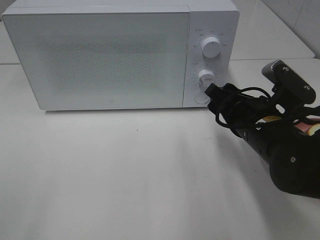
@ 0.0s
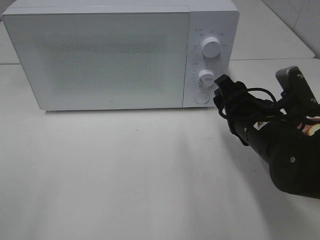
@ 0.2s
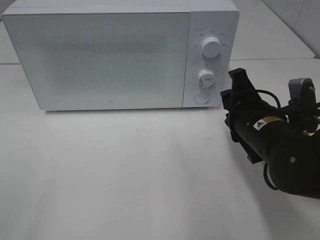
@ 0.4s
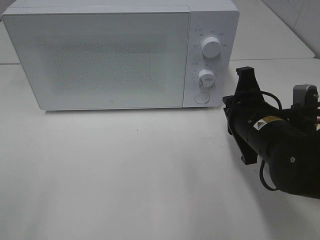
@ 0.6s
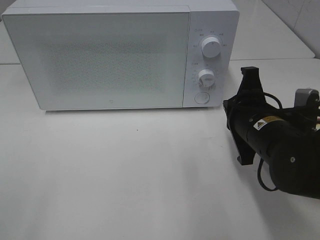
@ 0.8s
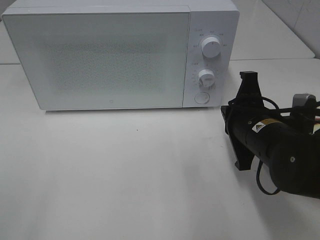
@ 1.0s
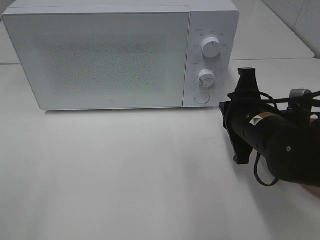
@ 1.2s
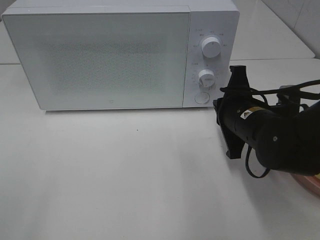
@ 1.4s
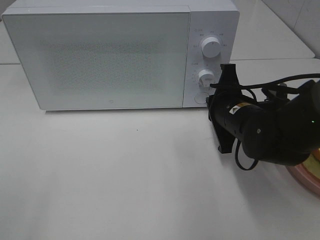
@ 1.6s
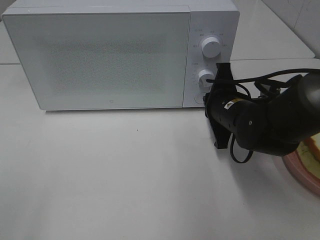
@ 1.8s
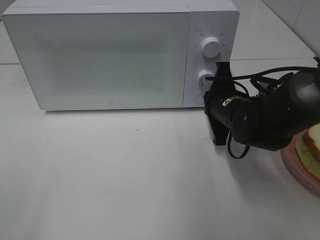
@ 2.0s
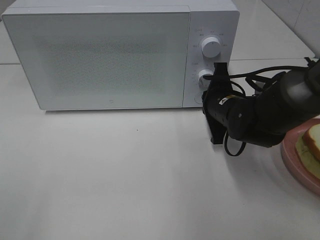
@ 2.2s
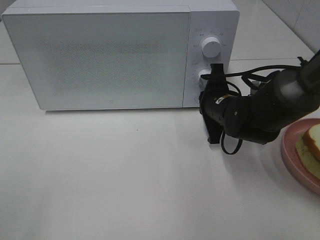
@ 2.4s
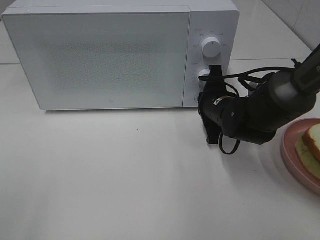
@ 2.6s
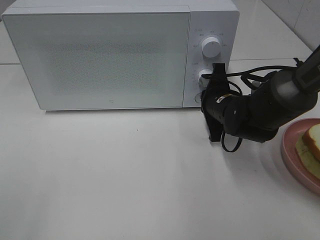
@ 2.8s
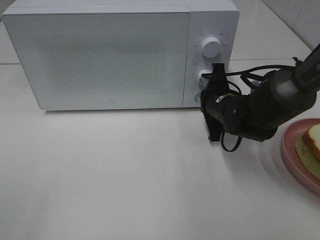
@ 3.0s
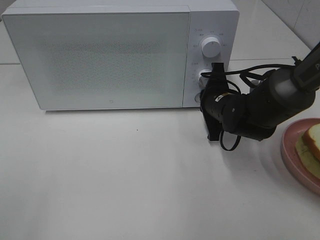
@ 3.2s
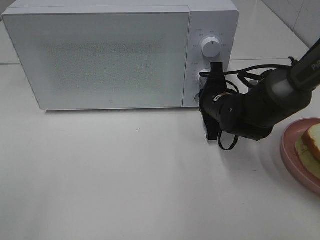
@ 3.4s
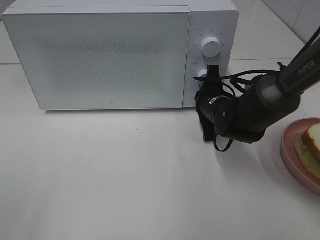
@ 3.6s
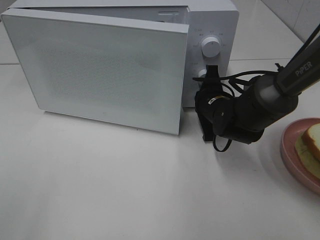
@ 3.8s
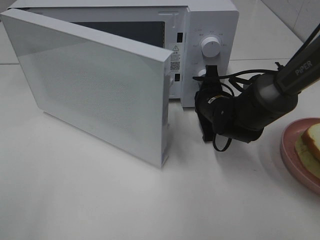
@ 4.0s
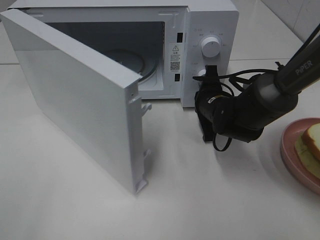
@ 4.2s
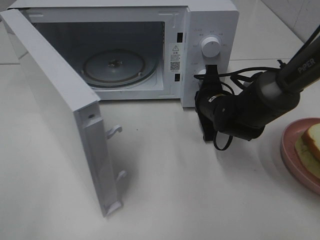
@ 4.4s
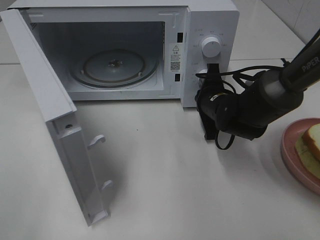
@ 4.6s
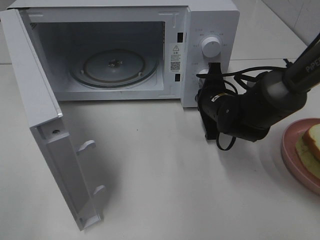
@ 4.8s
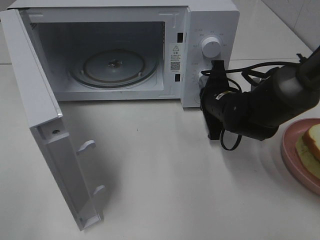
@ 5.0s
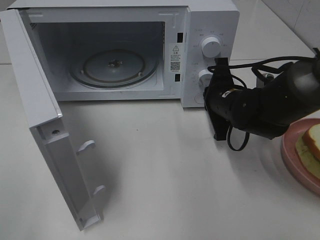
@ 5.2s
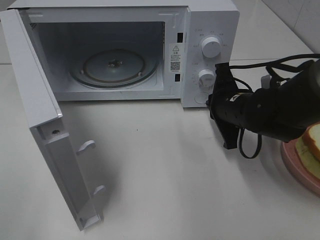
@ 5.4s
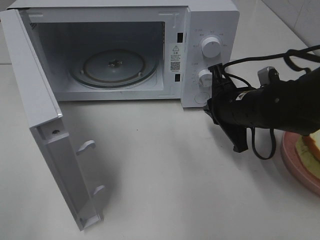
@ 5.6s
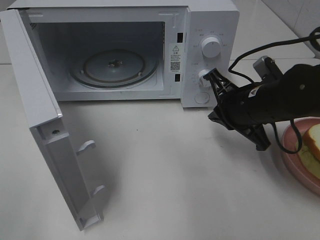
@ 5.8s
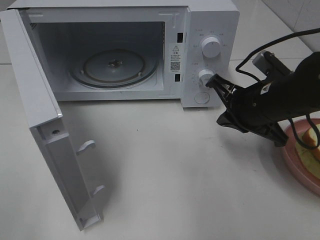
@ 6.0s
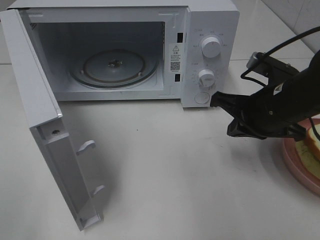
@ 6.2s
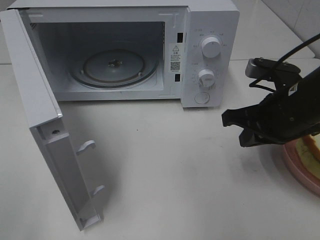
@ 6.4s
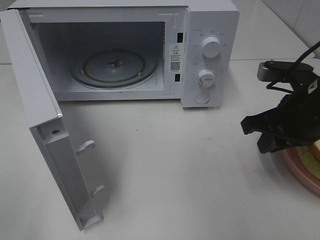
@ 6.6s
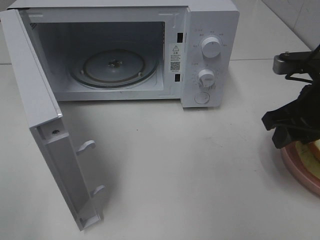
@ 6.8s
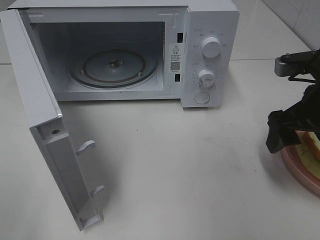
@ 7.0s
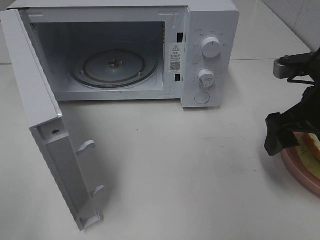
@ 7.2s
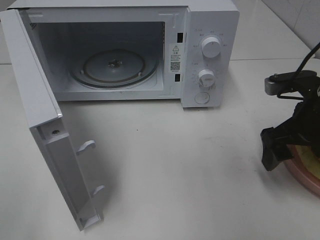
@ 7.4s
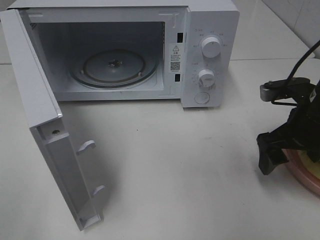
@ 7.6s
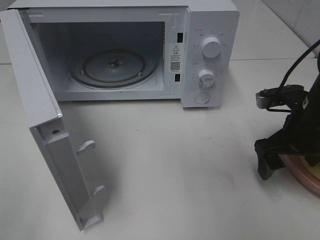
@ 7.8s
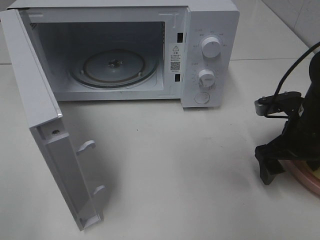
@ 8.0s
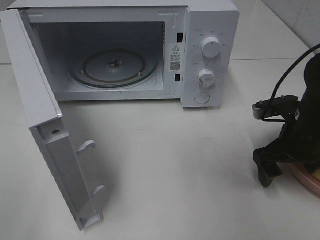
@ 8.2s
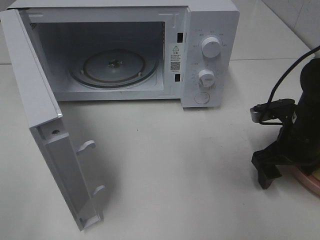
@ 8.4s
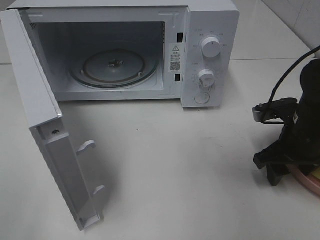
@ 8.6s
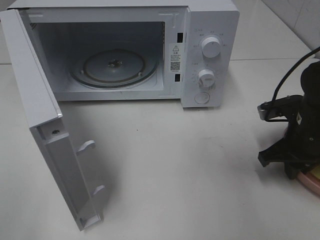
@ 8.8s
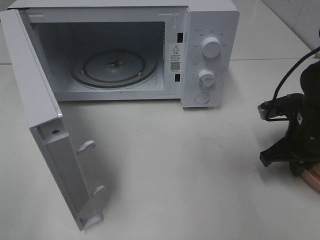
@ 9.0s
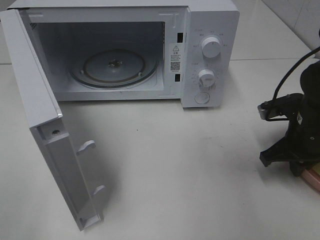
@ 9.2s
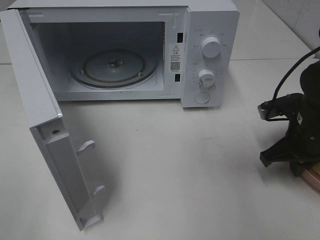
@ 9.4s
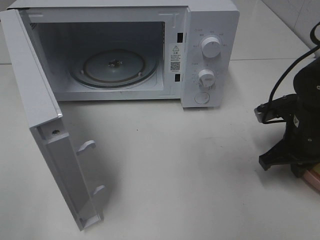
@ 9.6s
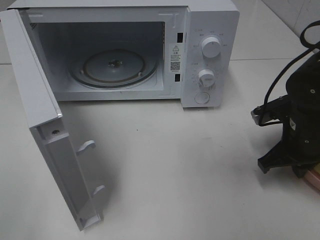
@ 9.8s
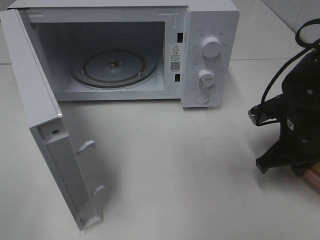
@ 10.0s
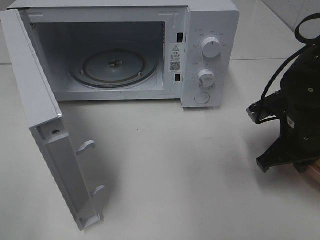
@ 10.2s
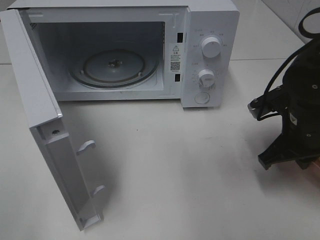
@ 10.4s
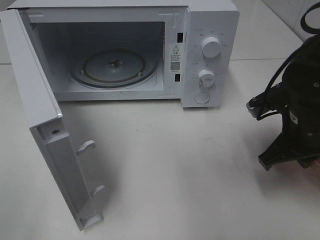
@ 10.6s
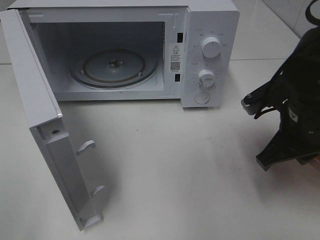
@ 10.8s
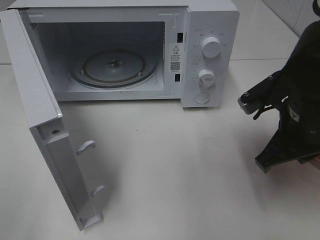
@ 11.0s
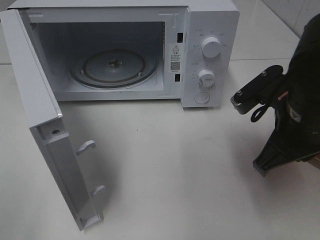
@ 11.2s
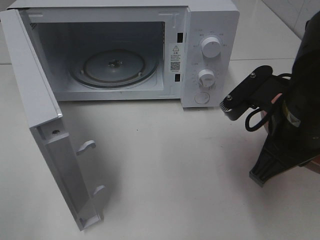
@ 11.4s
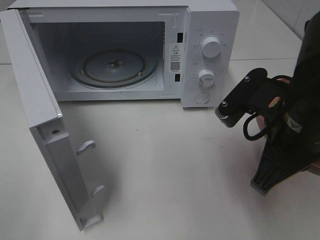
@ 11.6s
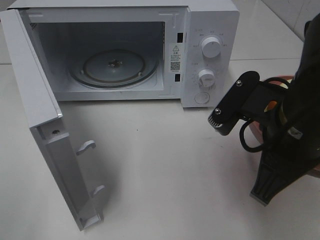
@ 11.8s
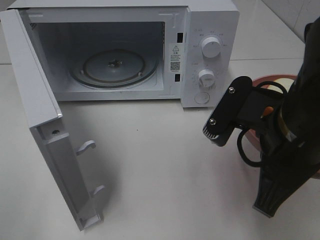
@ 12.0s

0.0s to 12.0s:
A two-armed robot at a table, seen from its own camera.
Task of the whole recording: Heat Sandwich.
Step, 0.0s to 5.4s: Right hand: press the switch.
Step, 5.6s to 9.2s: Right hand: grab the plate with the sandwich.
0.0s to 1.6s: The right gripper shifts by roughly 5 cm, and closes its fingers.
1.6s to 3.0s: The right gripper travels forward by some 5 cm.
4.4s to 6.0s: The right gripper heads backward and upward, covering some 10 cm.
6.0s to 7.6s: The right gripper shifts roughly 5 cm to the right, and opens.
7.6s to 9.0s: The right gripper changes place by about 5 cm, and closes.
9.0s to 10.4s: The grippers make only small movements.
10.4s to 12.0s: The right gripper is displaced backward, to the left and upward by approximately 15 cm.

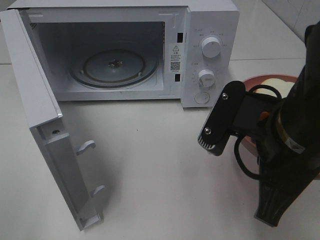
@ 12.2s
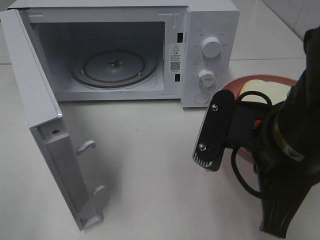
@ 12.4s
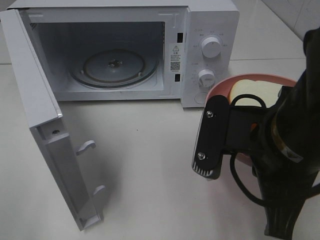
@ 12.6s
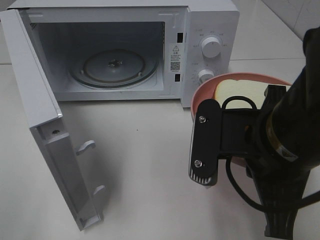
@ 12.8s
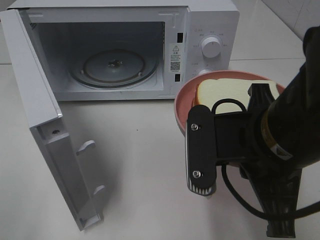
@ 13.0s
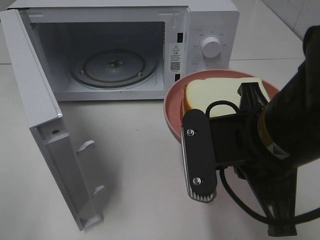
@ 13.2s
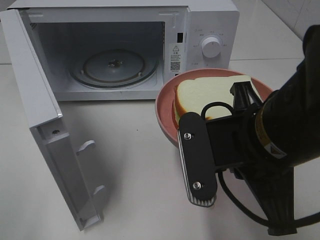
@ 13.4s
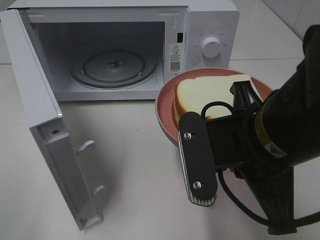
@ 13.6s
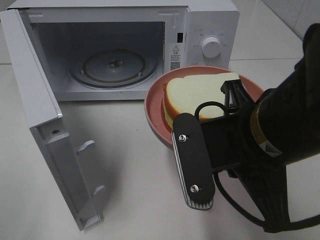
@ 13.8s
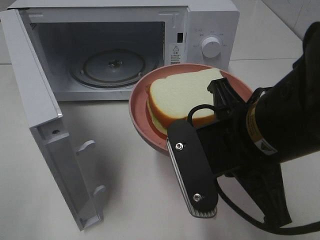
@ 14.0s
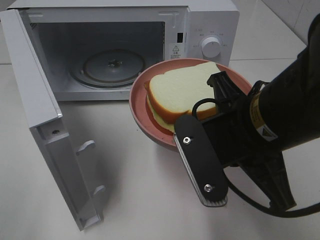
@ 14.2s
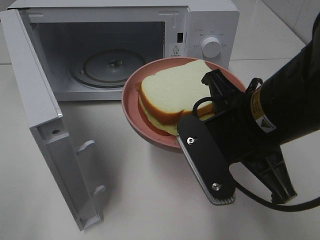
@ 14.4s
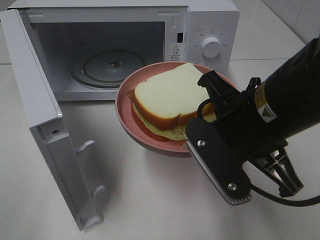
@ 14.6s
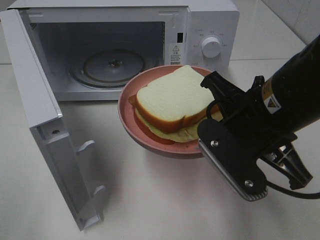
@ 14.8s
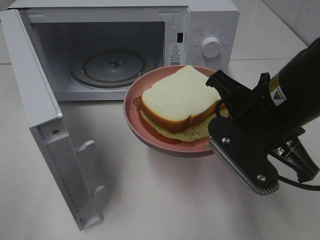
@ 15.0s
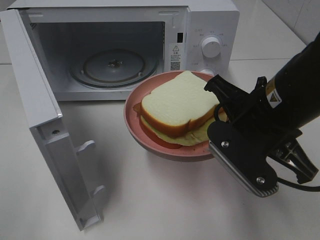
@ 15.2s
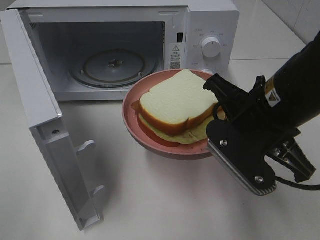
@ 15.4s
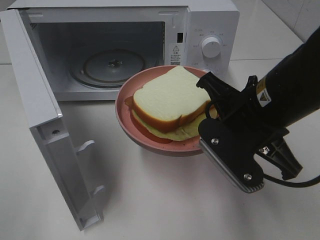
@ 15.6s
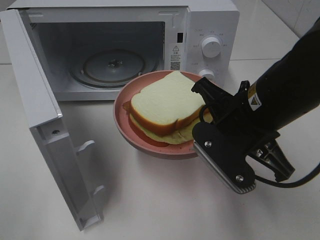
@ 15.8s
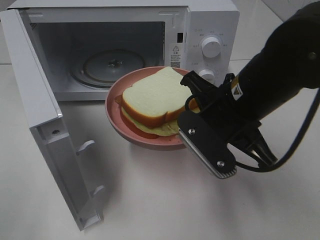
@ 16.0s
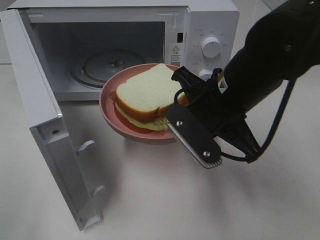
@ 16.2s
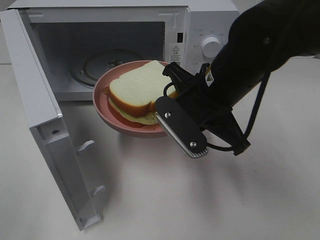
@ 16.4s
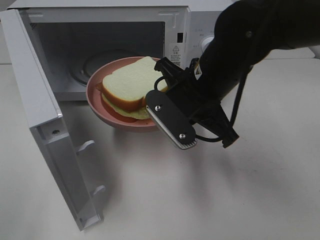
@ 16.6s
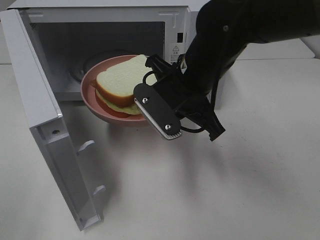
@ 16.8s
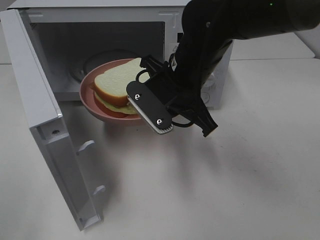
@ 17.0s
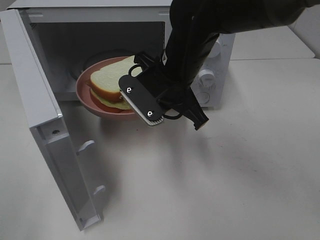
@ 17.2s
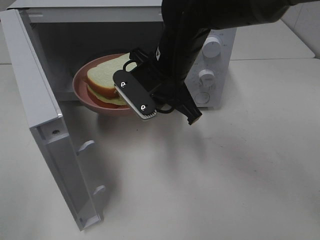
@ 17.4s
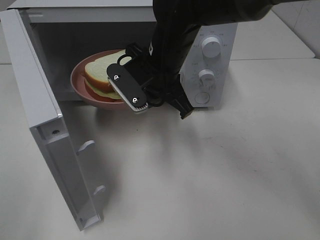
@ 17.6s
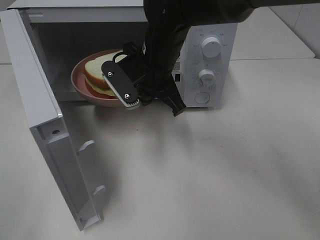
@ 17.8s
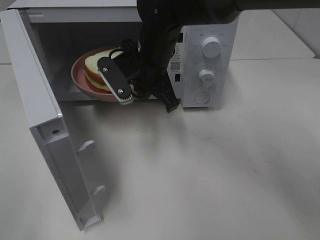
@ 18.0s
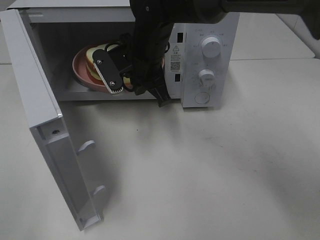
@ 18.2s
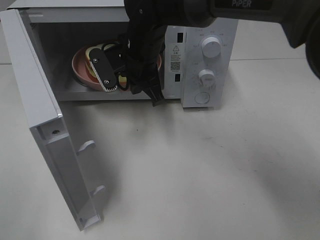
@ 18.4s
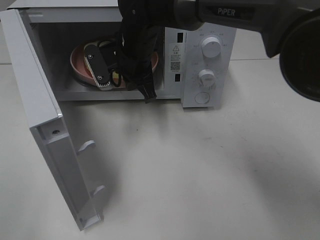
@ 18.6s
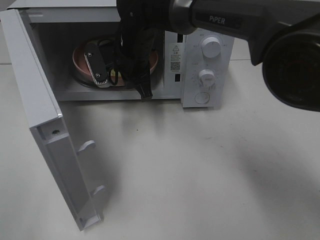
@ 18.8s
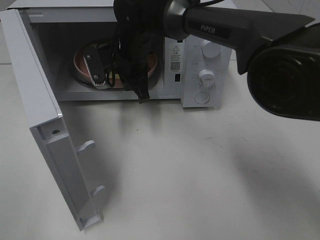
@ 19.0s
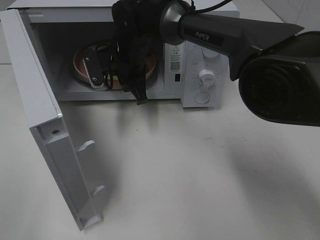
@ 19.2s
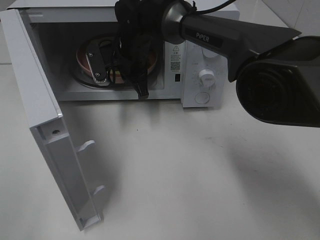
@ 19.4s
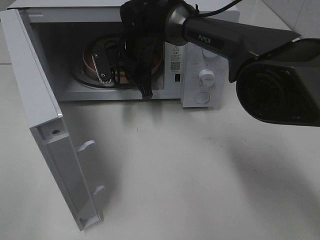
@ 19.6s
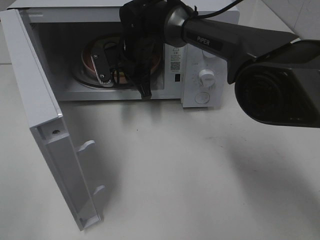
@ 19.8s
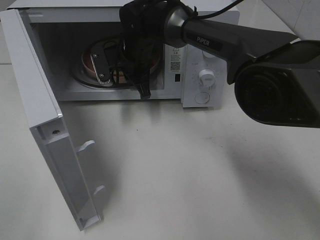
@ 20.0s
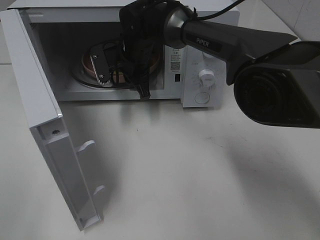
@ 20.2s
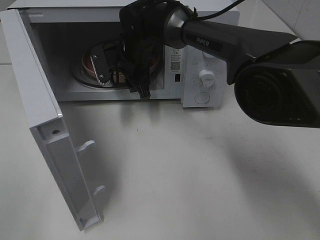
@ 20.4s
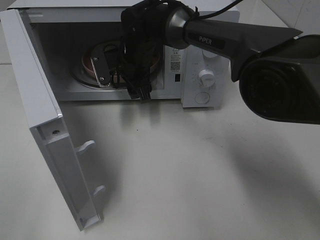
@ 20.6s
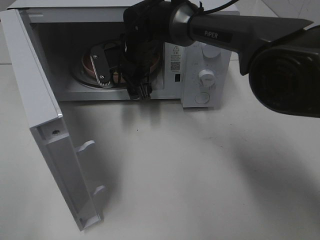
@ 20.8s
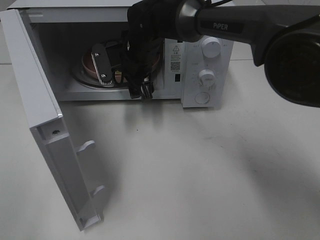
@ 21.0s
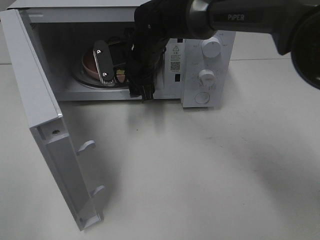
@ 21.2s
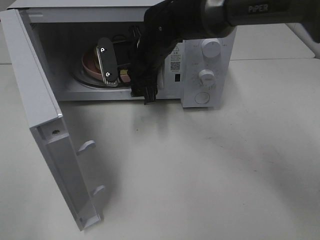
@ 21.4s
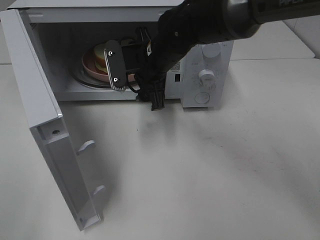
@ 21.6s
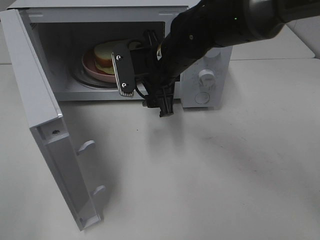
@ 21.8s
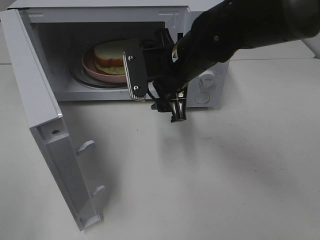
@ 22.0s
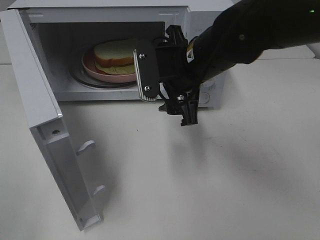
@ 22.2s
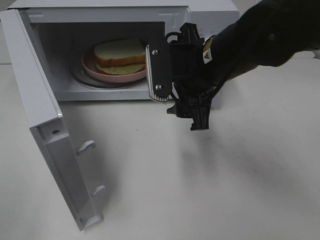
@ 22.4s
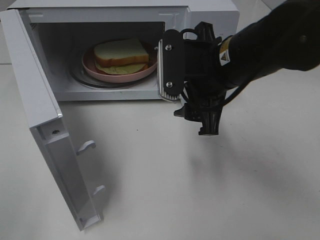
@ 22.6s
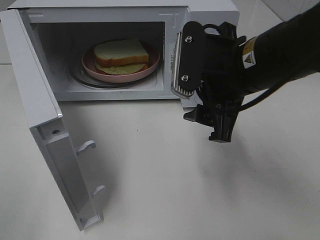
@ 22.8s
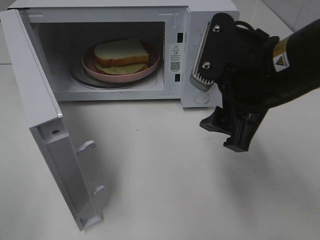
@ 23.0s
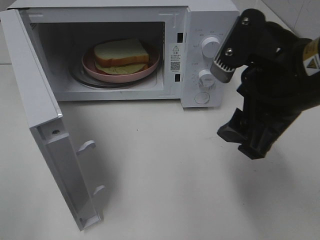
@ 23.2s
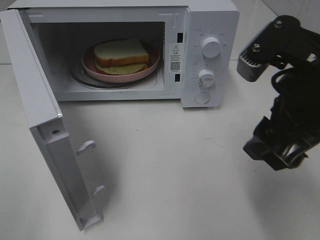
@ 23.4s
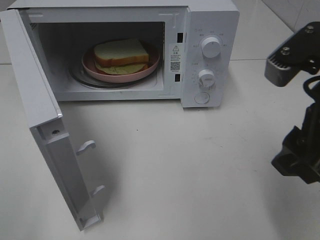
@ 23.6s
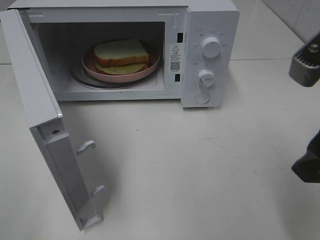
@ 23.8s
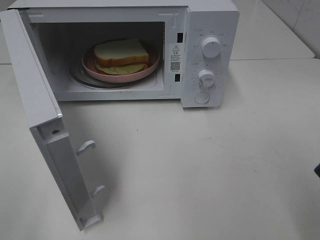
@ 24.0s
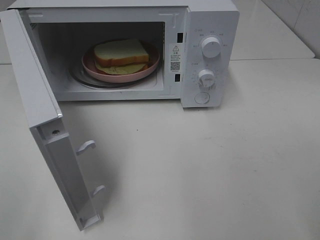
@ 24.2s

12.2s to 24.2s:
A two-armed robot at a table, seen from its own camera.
Task of the whole recording: Heat Sandwich.
Step, 12.2s to 21.2s: Right hand: place the plate in the microwave.
13.8s to 15.2s: The right gripper is displaced forward by about 5 cm.
15.2s to 16.6s: The right gripper heads forward and to the left, covering some 10 cm.
16.6s to 18.2s: The right gripper heads forward and to the left, covering some 15 cm.
18.2s to 19.8s: The right gripper moves forward, about 5 cm.
19.8s to 21.2s: The right gripper opens its fingers.
21.2s to 22.6s: The right gripper shifts roughly 20 cm backward and to the right.
22.6s to 24.2s: The right gripper moves backward, to the right and upward, some 25 cm.
